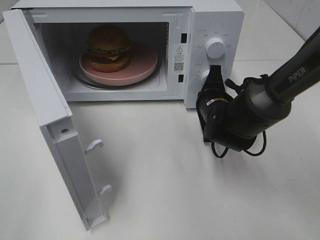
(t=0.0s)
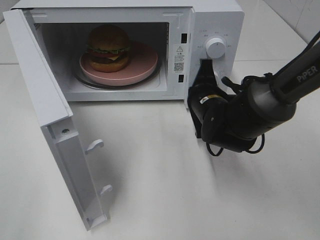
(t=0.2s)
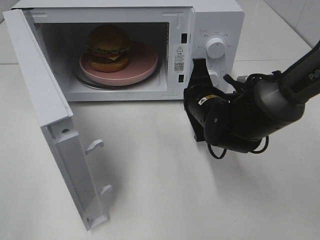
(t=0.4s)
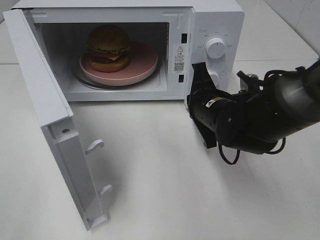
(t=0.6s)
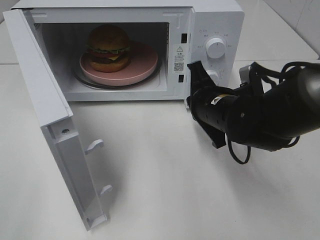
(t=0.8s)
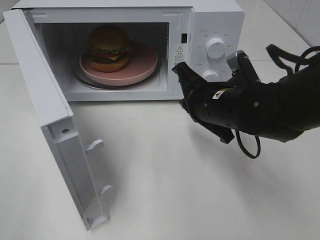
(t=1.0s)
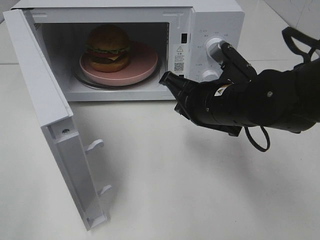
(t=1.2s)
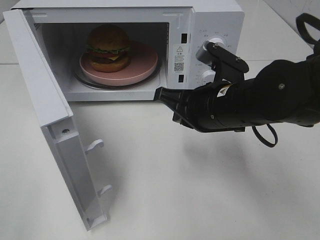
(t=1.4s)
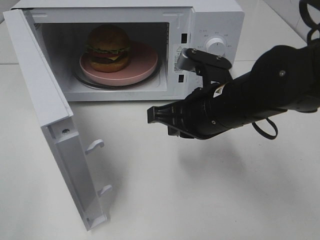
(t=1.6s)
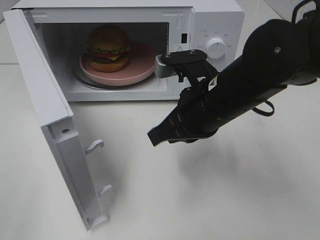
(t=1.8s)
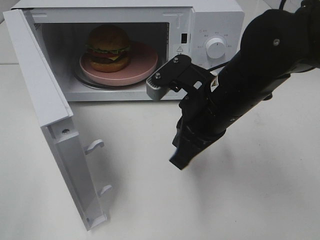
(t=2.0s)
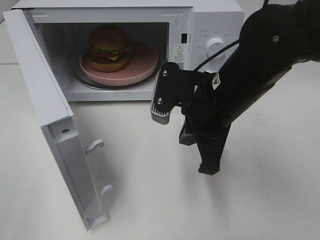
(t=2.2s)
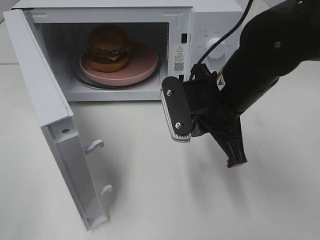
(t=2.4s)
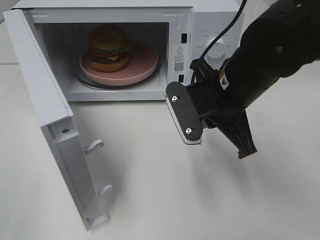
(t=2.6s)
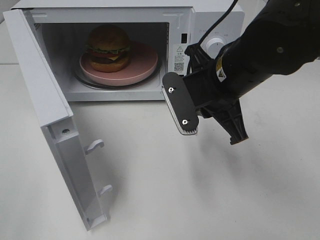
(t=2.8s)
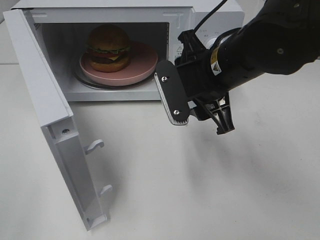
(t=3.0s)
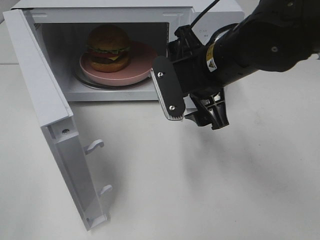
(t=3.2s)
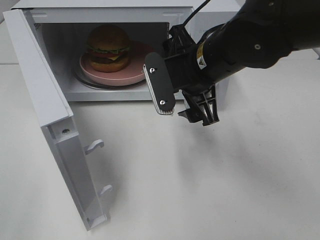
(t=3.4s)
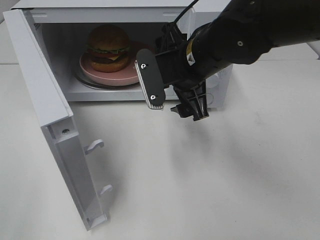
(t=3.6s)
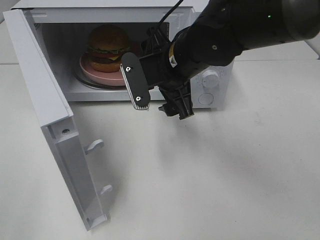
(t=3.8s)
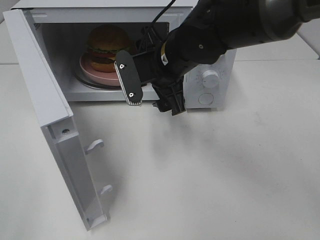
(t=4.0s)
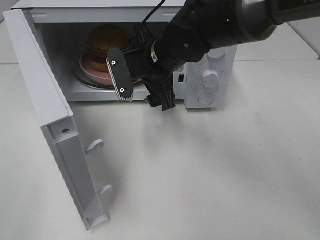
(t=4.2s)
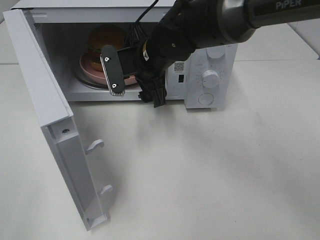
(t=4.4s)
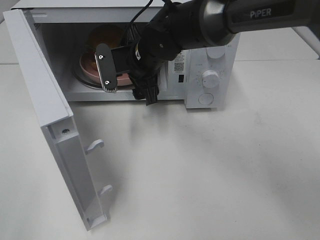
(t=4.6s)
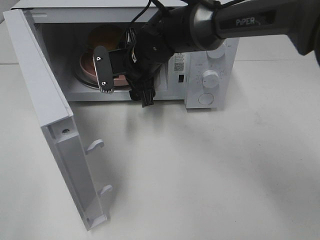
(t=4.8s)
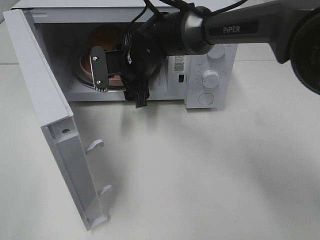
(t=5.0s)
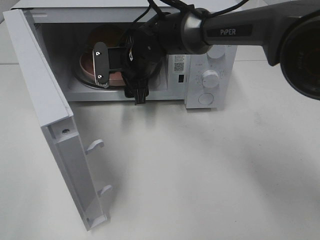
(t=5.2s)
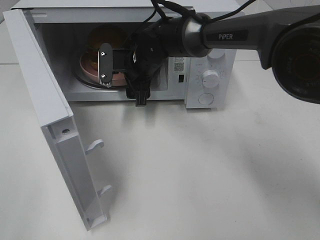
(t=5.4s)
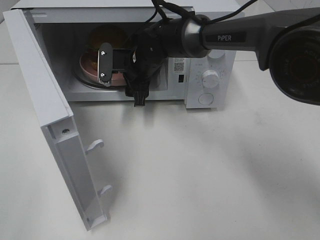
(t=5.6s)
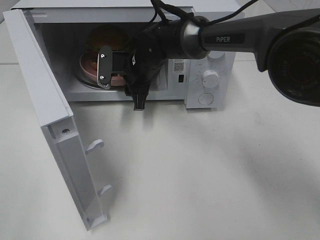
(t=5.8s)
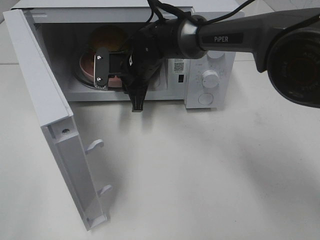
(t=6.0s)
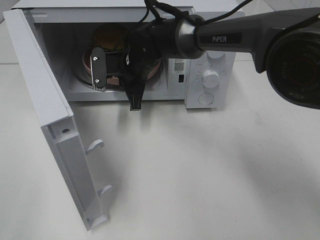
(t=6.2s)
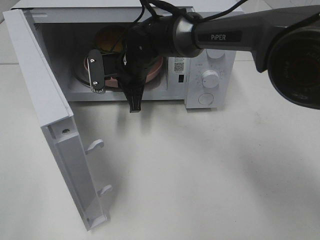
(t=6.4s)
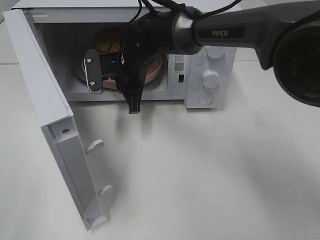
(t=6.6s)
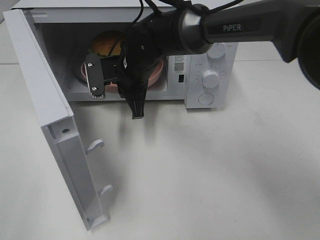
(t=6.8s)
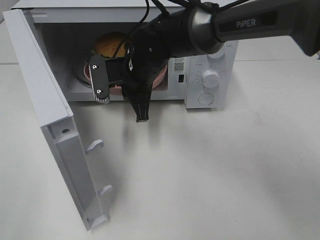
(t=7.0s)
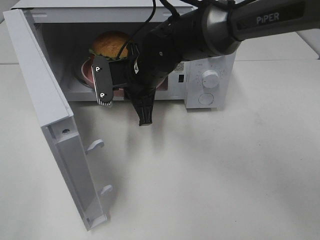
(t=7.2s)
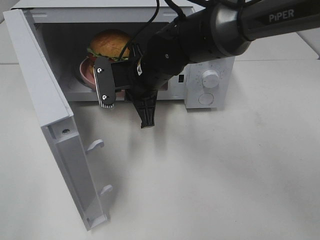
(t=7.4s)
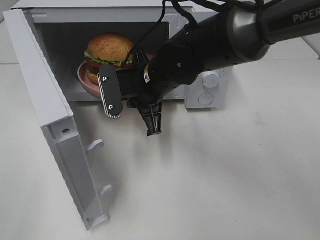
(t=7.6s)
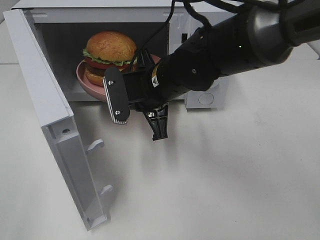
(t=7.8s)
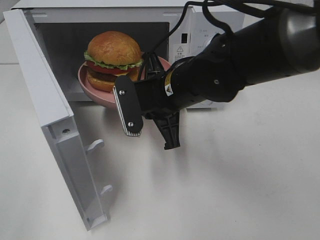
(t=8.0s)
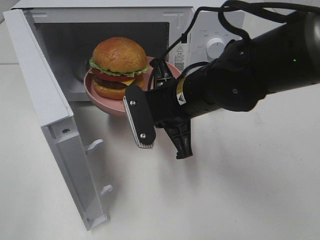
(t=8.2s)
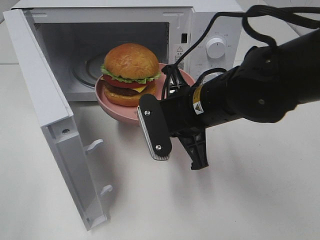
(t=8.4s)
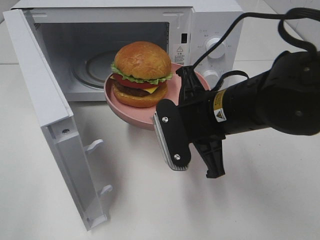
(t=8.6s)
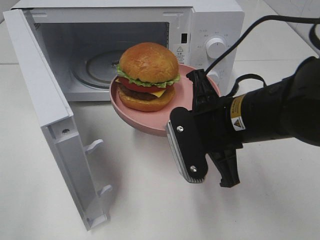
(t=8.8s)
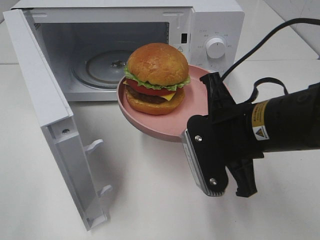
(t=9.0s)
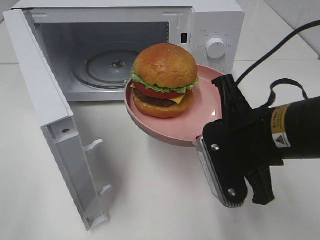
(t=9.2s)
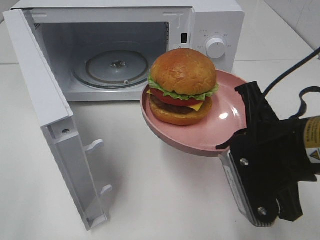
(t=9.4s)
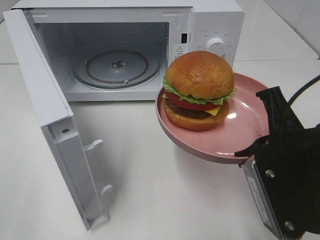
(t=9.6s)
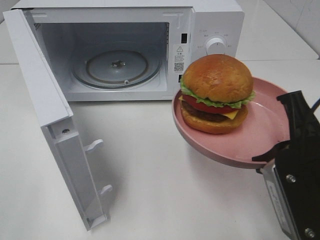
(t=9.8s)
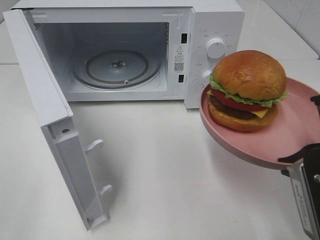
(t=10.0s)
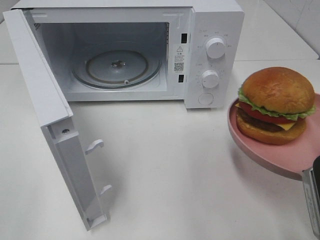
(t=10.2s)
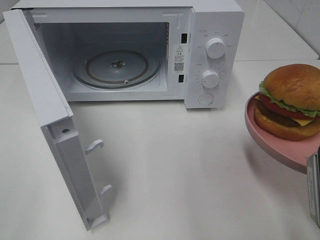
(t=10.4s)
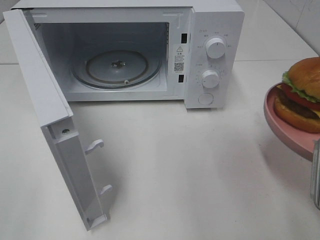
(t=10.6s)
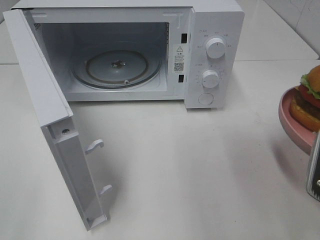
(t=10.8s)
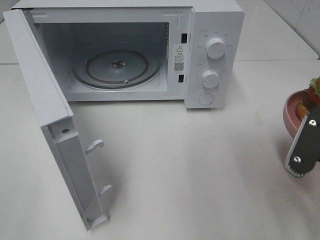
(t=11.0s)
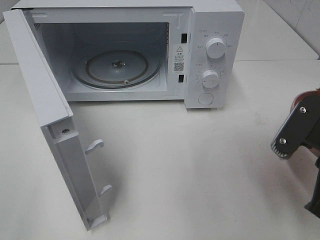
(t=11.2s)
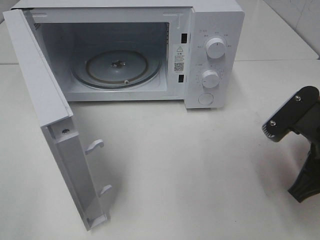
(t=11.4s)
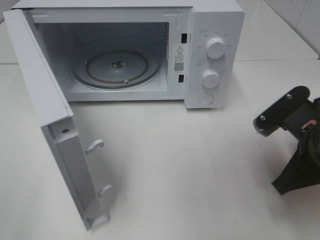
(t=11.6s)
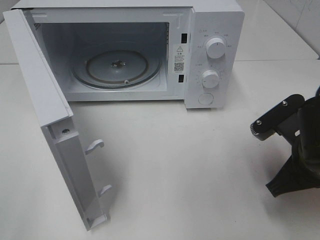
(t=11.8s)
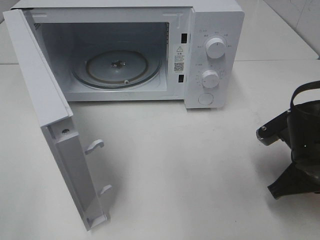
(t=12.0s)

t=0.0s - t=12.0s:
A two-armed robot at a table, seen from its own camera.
Task of the whole recording: Heat the burger.
Step, t=0.2s - t=6.2s: Right hand: grab the plate with the hamburger.
t=0.0s - t=1.6s: The right gripper shifts approximately 15 cm backward and upward.
t=1.6s - t=3.0s: The right gripper opens its fingers.
t=3.0s - t=4.4s: The right gripper heads forward and to the left, covering some 15 cm.
t=4.4s - t=6.0s: The right gripper moves forward and downward, some 5 cm, and closes up.
t=6.0s - t=7.6s: The right gripper is displaced backward by approximately 10 cm.
t=7.6s - t=9.0s: The right gripper travels backward and to the right by some 20 cm.
t=9.0s - t=10.4s: The right gripper travels to the right and backward by some 15 cm.
t=10.4s - t=12.0s: The right gripper shifts about 10 cm forward and downward.

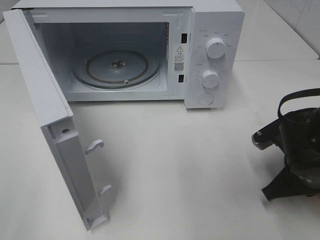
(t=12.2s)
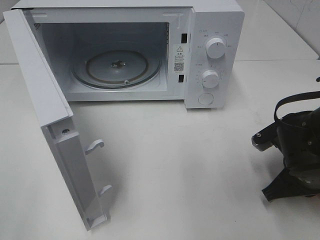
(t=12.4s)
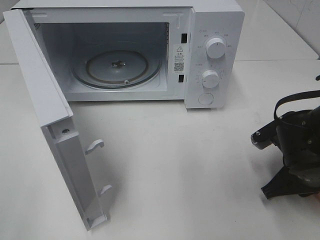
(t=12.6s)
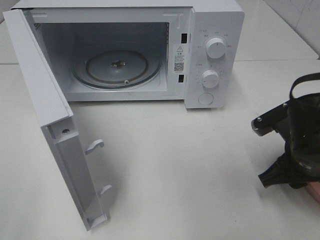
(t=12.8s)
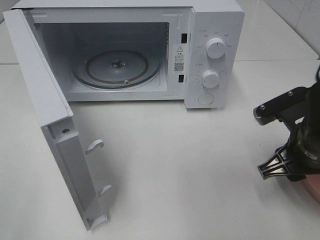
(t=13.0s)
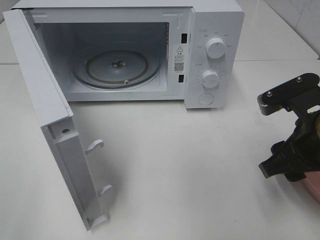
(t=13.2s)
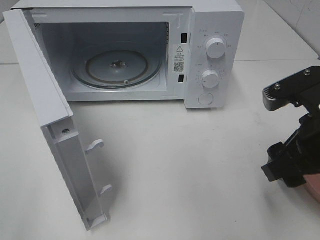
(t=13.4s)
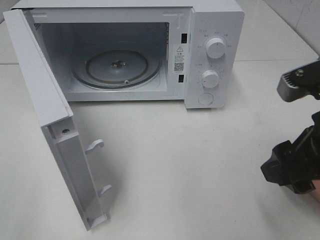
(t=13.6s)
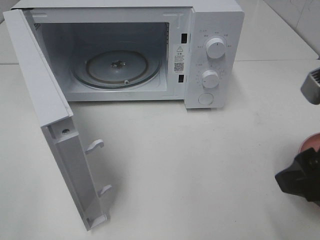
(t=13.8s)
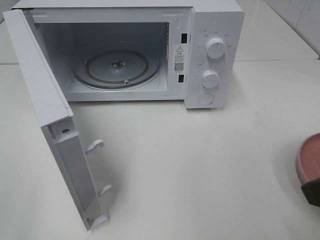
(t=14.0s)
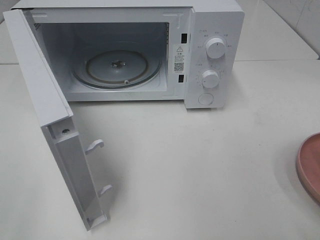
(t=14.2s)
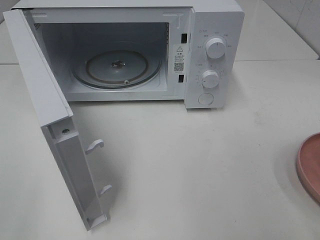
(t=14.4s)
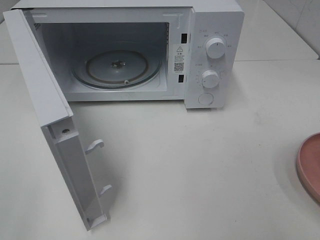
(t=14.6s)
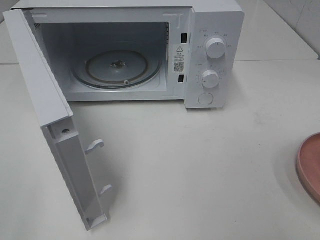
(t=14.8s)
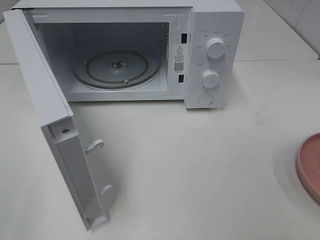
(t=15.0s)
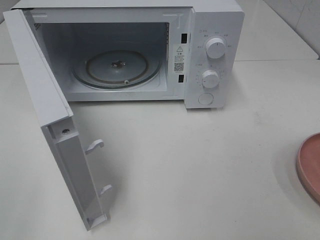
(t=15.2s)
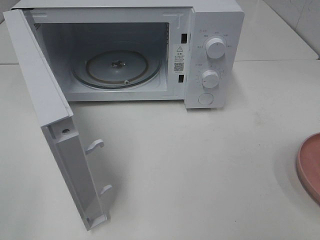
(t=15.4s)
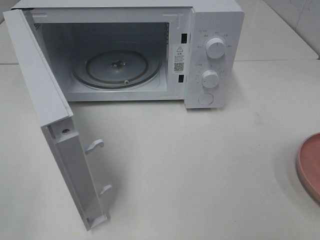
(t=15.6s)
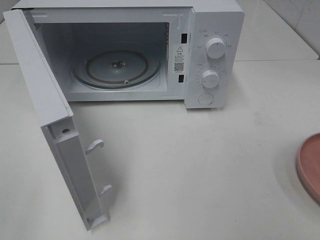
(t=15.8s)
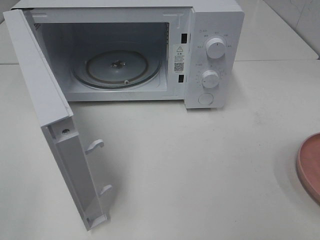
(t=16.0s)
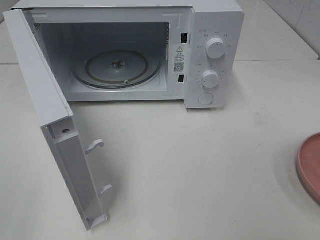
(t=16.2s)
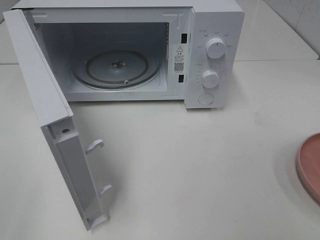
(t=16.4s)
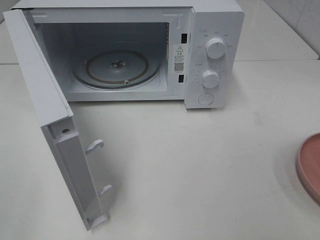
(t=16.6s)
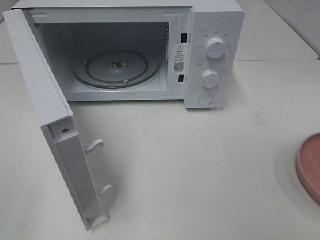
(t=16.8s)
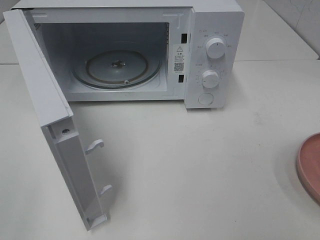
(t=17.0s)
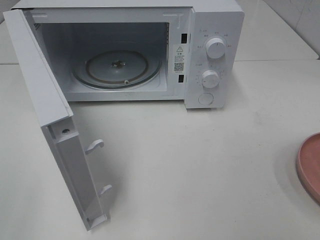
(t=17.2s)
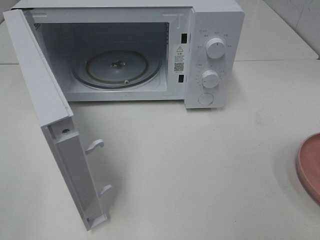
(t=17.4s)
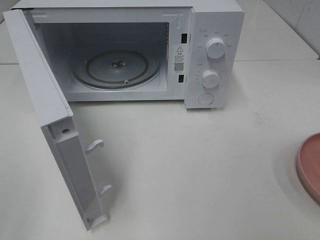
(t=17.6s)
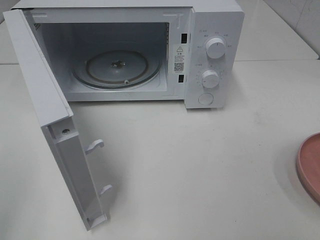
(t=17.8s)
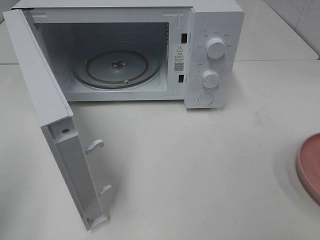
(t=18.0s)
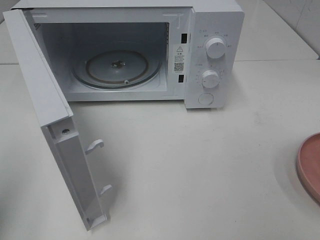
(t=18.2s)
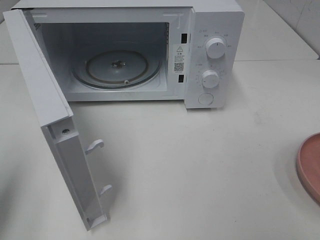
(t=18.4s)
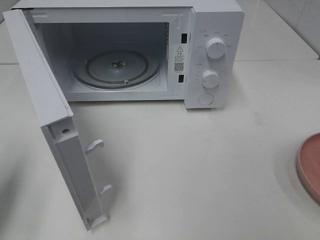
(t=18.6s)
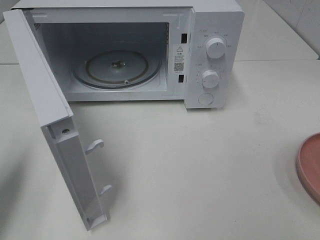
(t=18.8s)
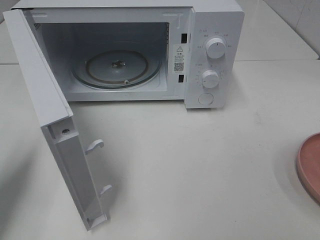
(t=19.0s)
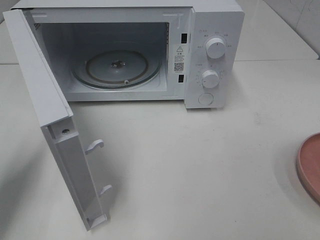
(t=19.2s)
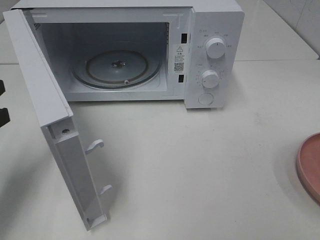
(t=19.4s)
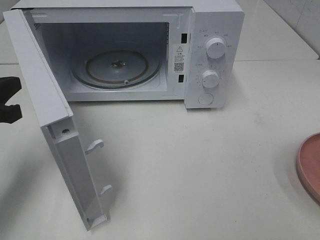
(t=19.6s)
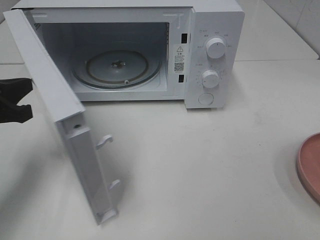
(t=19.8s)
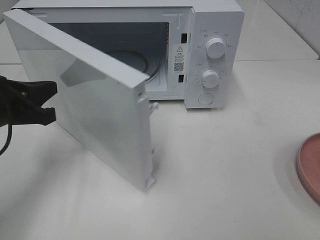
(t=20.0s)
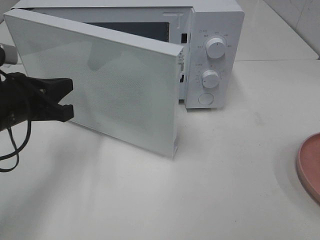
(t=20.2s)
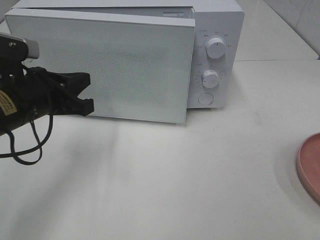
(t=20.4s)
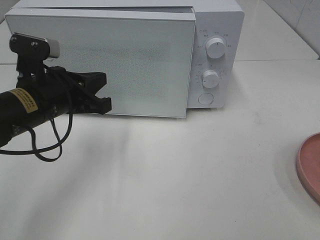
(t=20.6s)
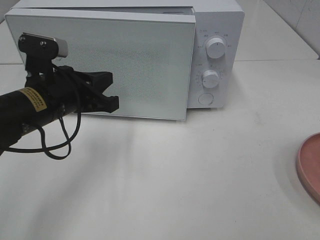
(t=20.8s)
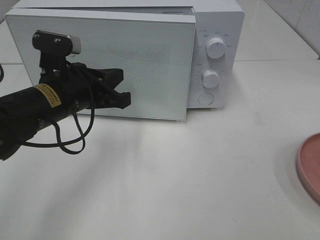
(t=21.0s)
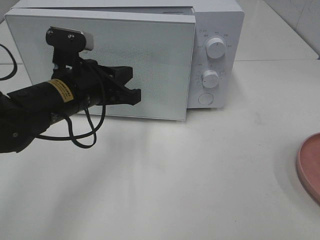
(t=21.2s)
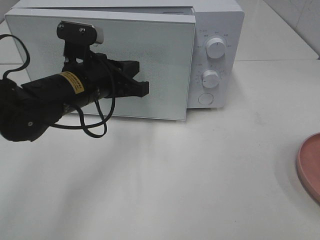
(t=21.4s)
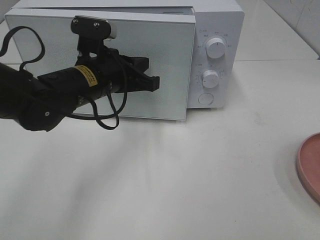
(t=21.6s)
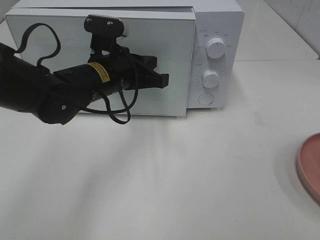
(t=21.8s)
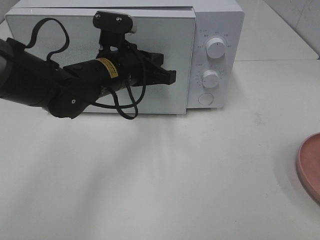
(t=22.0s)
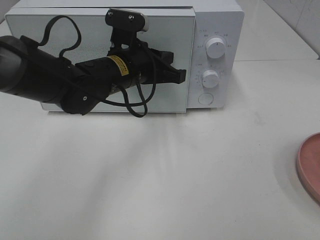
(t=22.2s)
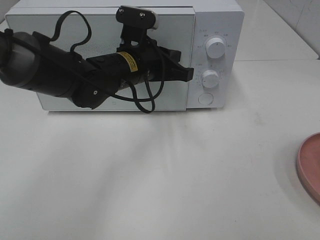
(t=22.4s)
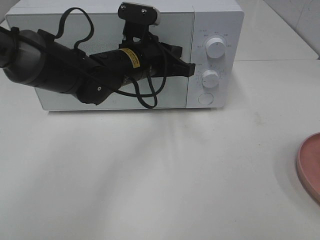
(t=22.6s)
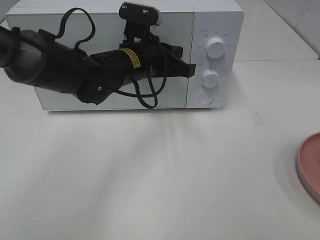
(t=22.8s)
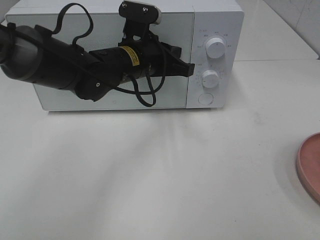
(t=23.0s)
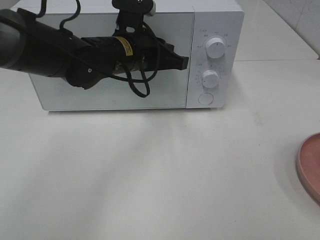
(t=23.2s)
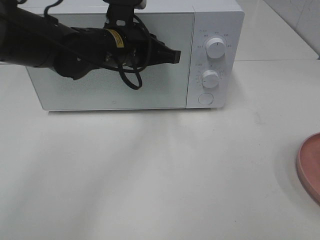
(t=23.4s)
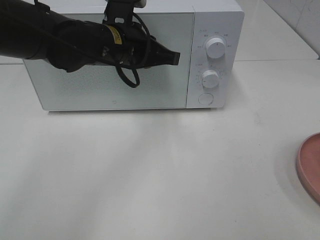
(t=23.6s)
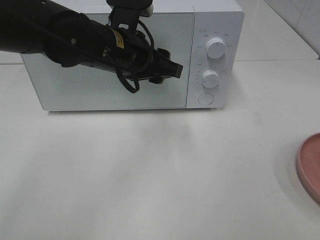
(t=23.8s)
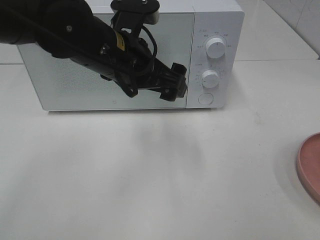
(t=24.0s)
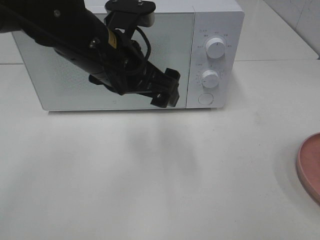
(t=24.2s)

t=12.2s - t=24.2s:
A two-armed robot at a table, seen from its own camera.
Task of the whole recording: Heat the burger.
Step, t=12.8s - t=23.4s: Left hand: close the microwave door.
t=12.2s - t=13.8s: The right gripper goes some 20 cm upward and backward, and opens up.
t=13.8s - t=15.2s: The right gripper is displaced backward and to the right by about 15 cm.
t=15.2s - t=16.6s: Both grippers stay about where they are.
t=18.2s - t=19.8s: The left gripper is displaced forward and downward by some 20 cm.
t=19.8s - t=21.2s: The left gripper is displaced to the right by about 15 cm.
t=21.2s - t=22.6s: The left gripper shifts some 10 cm to the right and forward.
t=22.6s - t=24.2s: The left gripper goes approximately 10 cm backward and upward, and opens up.
